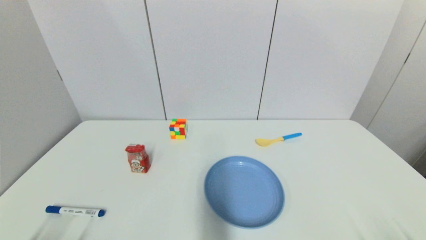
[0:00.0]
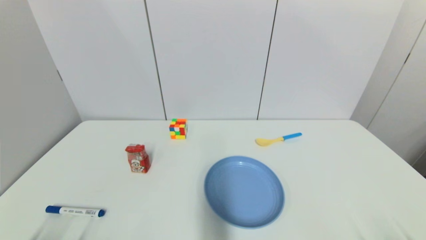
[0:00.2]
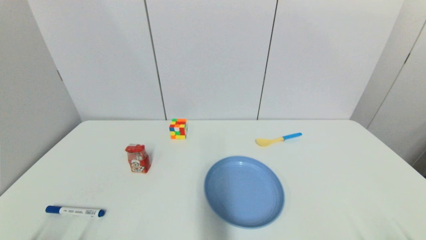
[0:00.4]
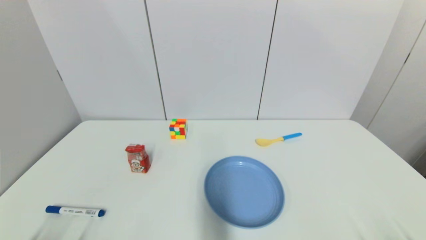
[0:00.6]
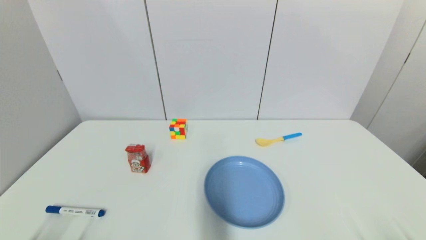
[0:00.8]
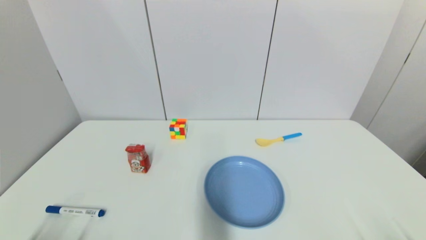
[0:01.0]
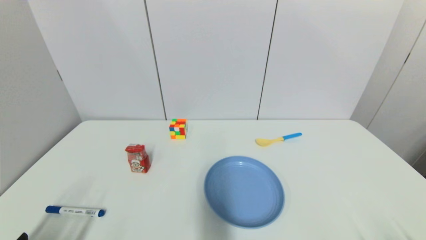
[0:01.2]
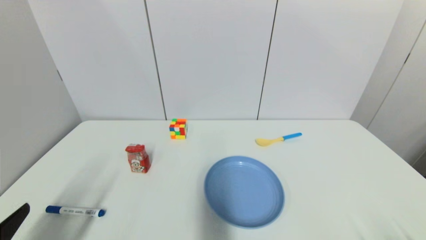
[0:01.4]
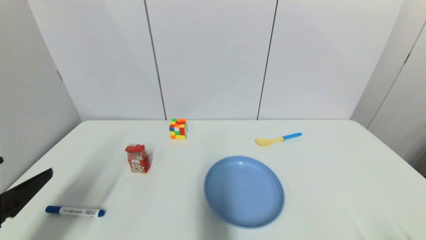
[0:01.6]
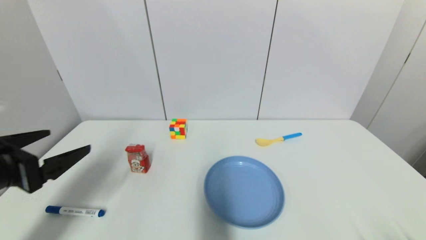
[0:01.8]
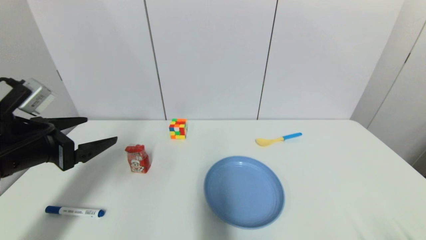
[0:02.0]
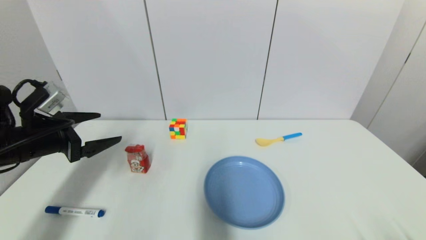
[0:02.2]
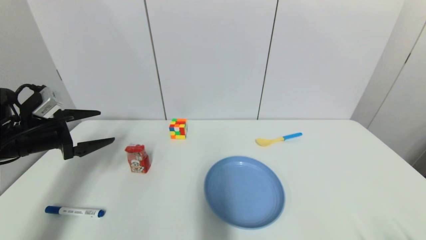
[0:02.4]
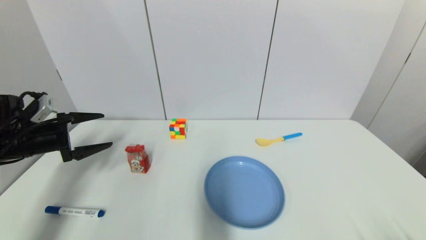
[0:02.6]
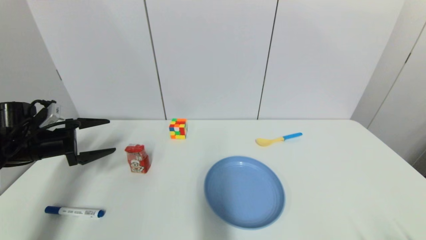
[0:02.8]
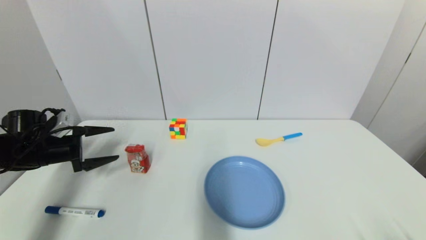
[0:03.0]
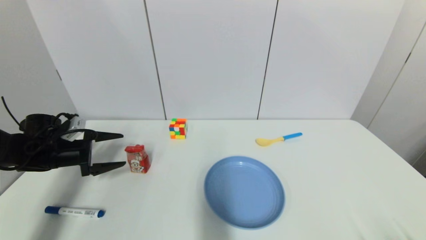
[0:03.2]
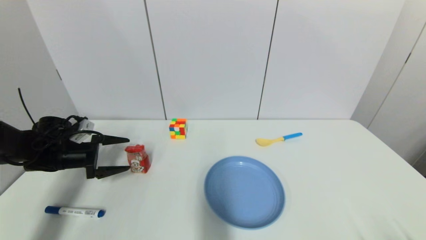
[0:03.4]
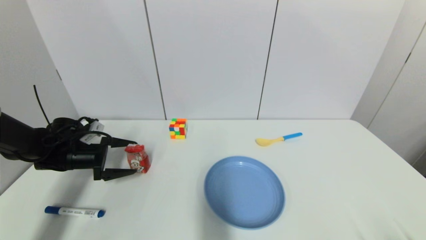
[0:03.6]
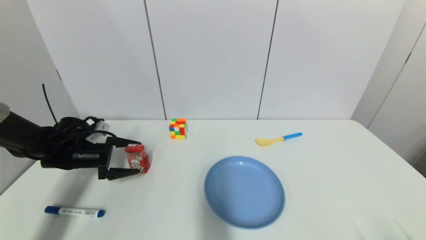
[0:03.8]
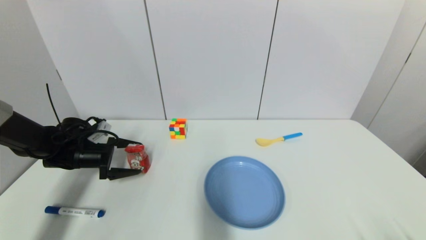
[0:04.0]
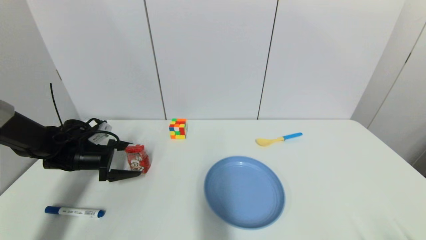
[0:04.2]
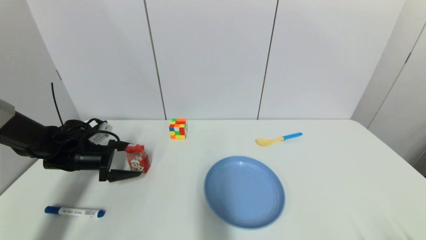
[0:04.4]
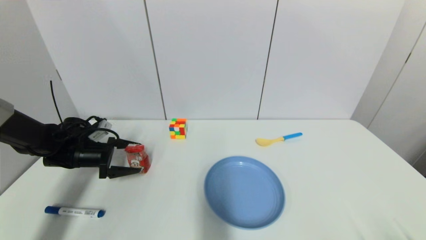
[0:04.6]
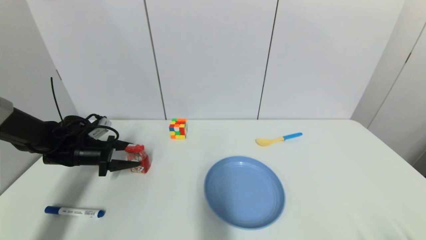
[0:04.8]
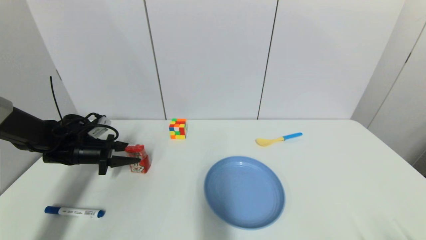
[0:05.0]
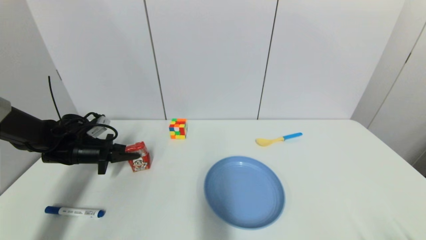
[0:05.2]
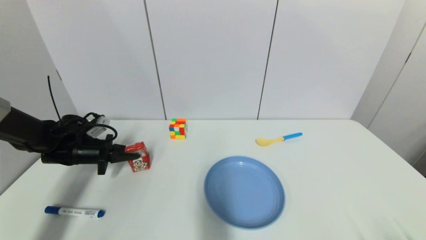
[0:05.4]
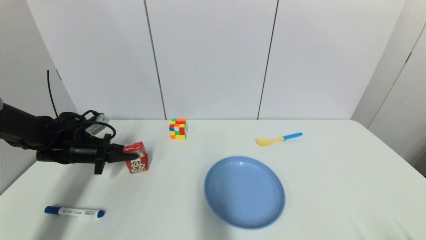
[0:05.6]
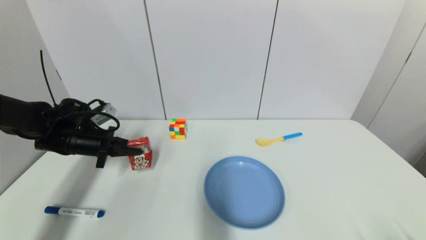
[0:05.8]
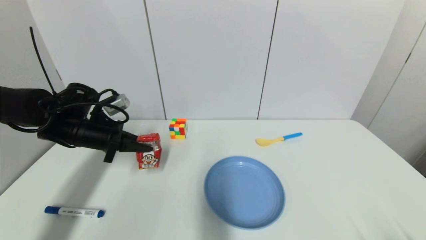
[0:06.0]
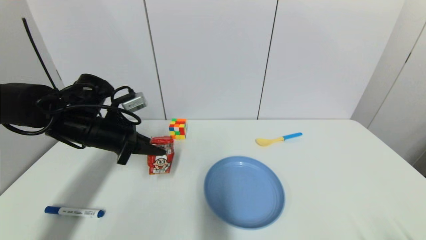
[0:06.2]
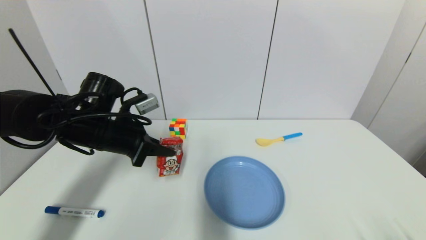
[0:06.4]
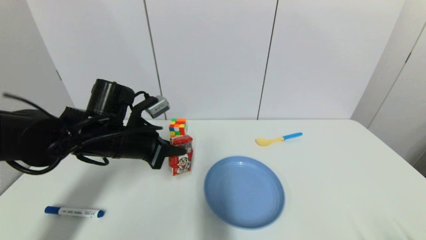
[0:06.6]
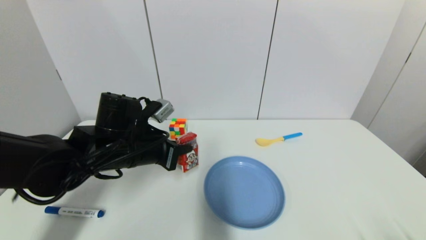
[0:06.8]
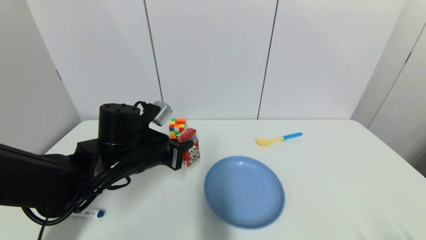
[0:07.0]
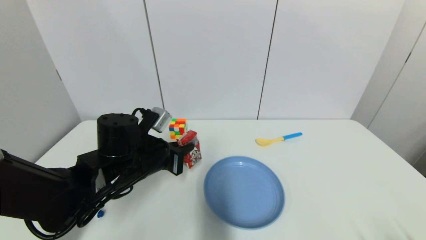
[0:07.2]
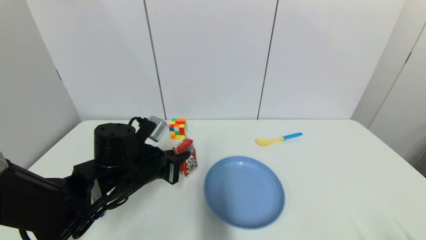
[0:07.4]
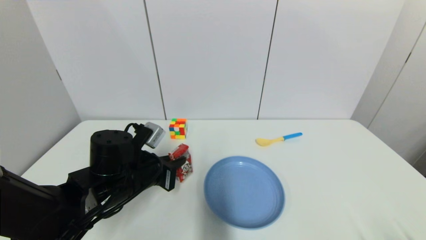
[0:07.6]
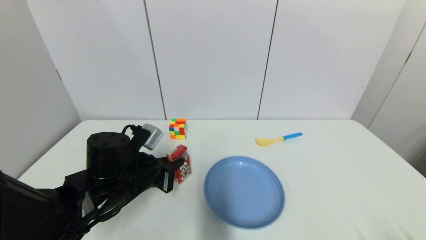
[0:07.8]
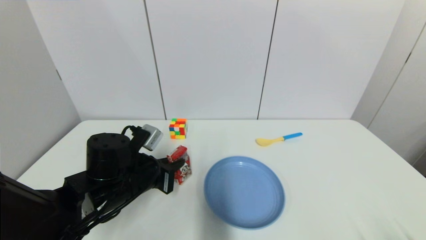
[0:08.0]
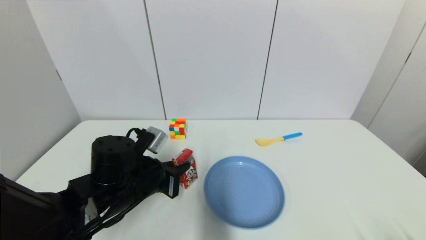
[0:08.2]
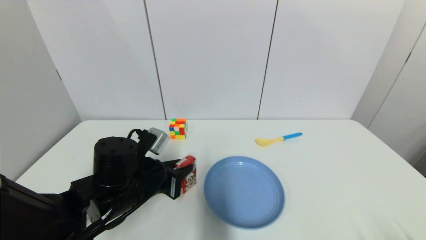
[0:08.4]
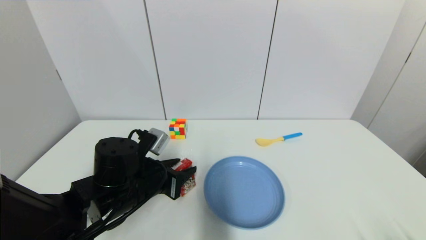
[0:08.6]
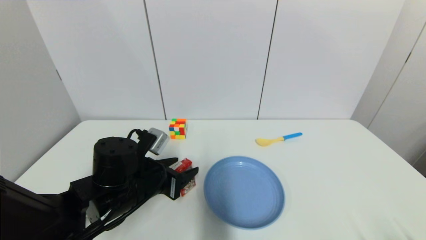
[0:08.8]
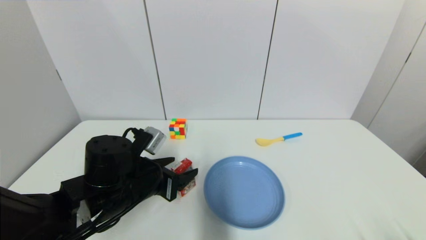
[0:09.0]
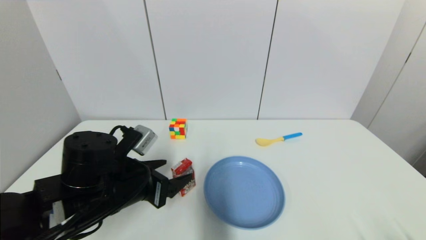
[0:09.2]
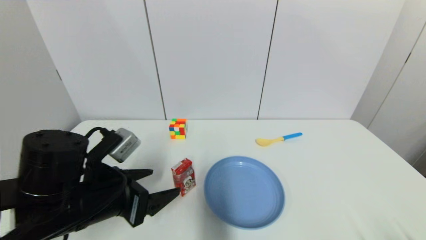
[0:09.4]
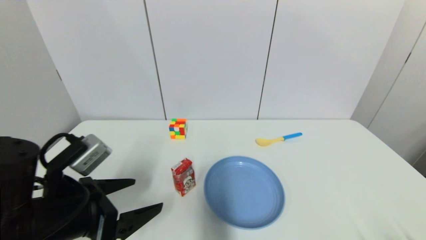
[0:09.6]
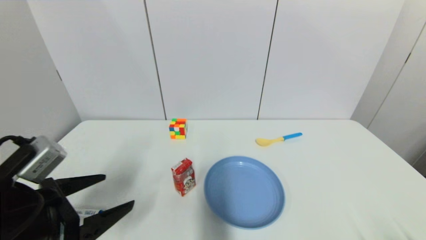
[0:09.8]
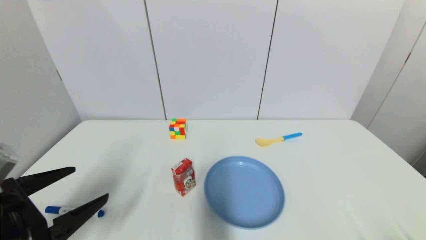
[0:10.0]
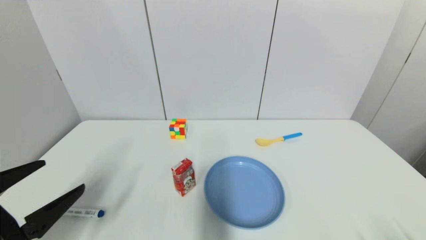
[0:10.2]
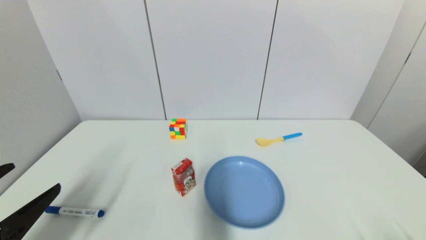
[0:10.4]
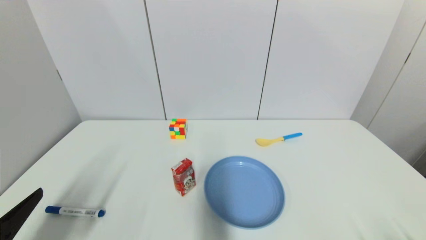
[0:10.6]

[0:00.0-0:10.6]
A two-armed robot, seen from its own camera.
Step, 0:01.4 to 0:05.0: Grasp the wangzai milk with left gripper.
Step, 0:05.4 to 0:08.4: Place the wangzai milk on the table with left gripper.
0:00.0 to 0:01.6: The left gripper shifts roughly 20 cm upward and forward.
0:01.6 to 0:03.0: The left gripper heads forward and downward, covering approximately 25 cm.
0:03.0 to 0:04.6: The left gripper shifts by some 5 cm.
0:04.6 to 0:06.0: The left gripper travels upward and to the right by about 15 cm, and closes up.
0:06.0 to 0:07.6: The left gripper shifts some 15 cm to the right, backward and downward.
0:07.6 to 0:09.0: The left gripper opens up.
0:09.0 to 0:10.6: The left gripper is displaced backward and to the left by roughly 25 cm.

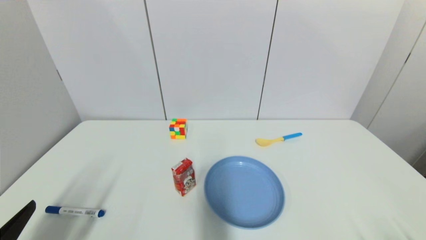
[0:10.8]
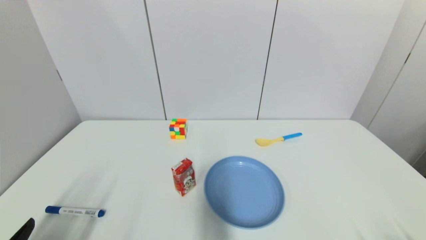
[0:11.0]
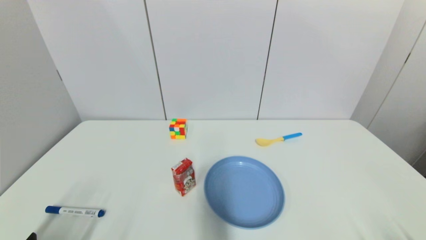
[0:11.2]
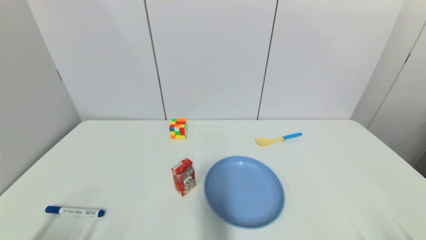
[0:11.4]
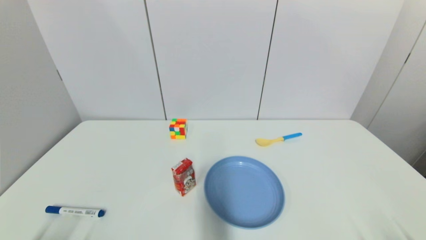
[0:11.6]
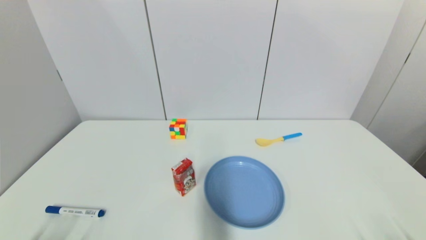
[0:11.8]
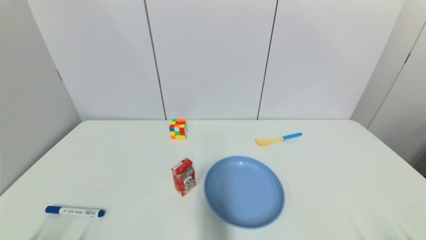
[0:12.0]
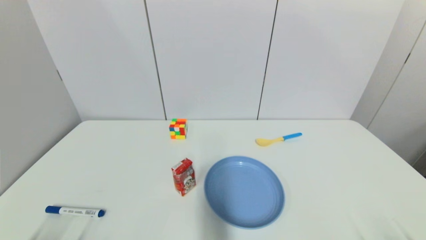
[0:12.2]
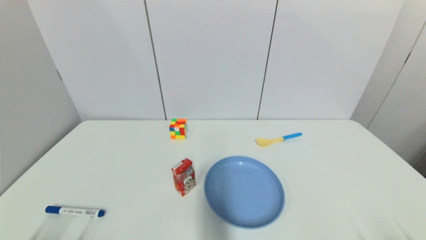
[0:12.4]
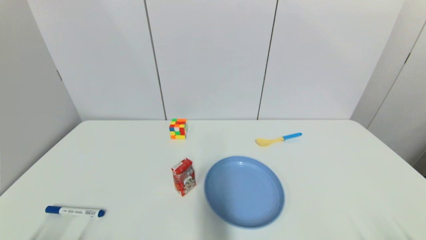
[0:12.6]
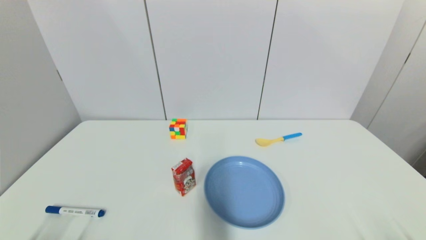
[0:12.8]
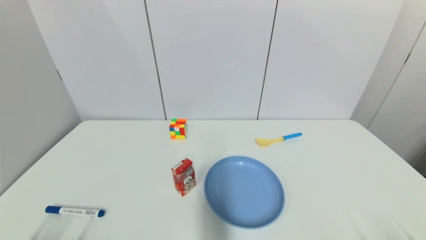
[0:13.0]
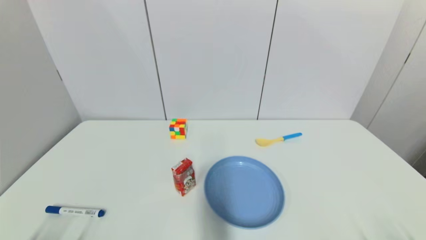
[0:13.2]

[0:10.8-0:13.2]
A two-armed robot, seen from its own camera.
0:10.8 to 0:12.0: The left gripper heads downward, covering about 10 cm.
0:12.0 to 0:13.2: Neither gripper changes place.
